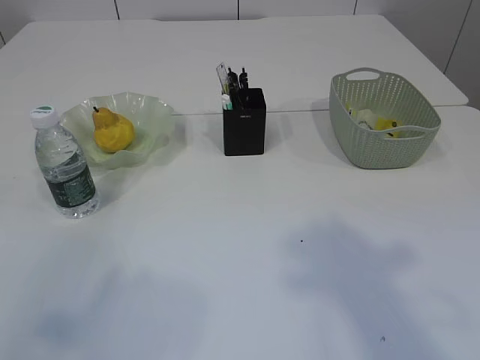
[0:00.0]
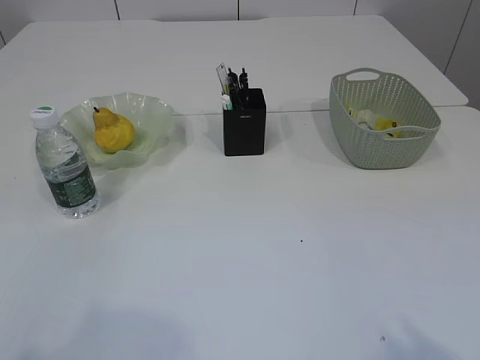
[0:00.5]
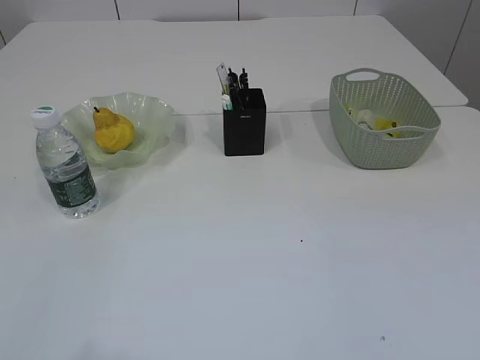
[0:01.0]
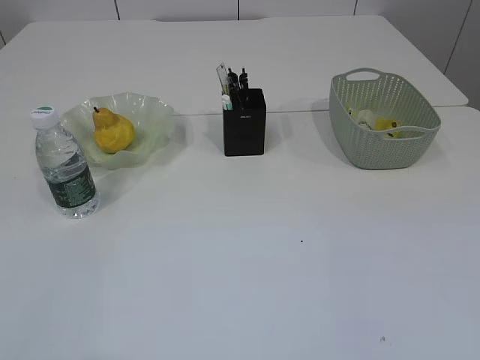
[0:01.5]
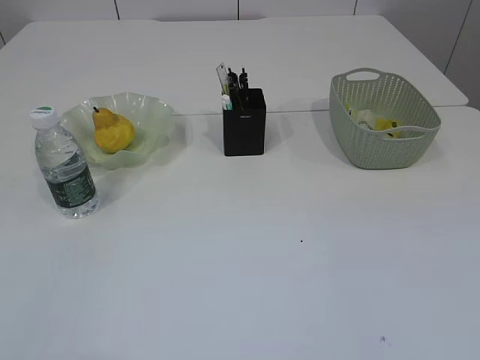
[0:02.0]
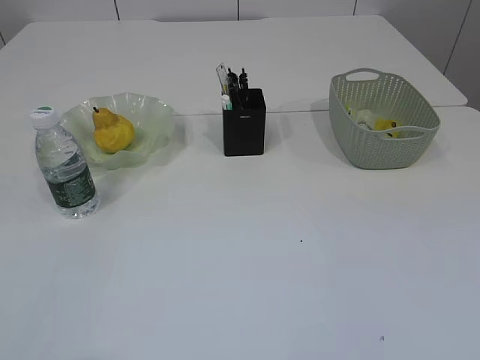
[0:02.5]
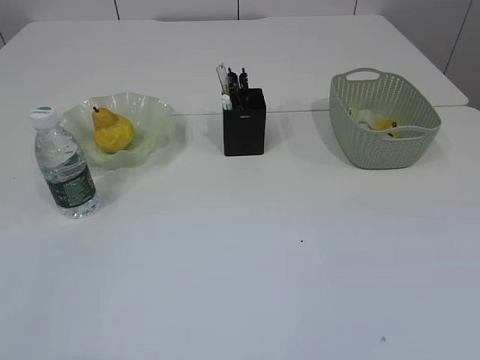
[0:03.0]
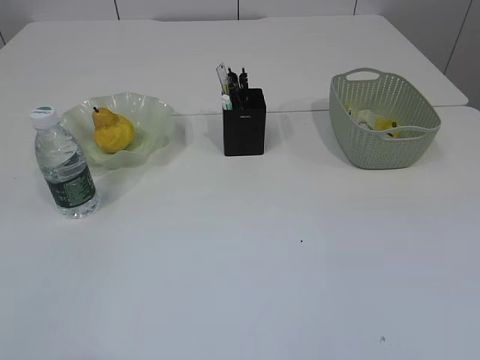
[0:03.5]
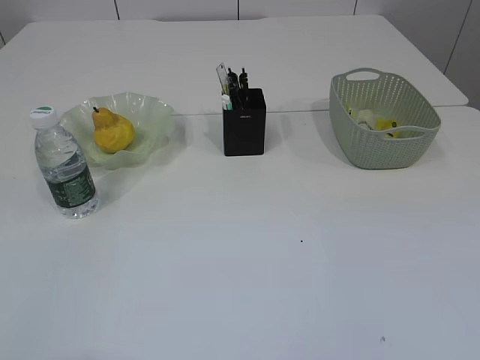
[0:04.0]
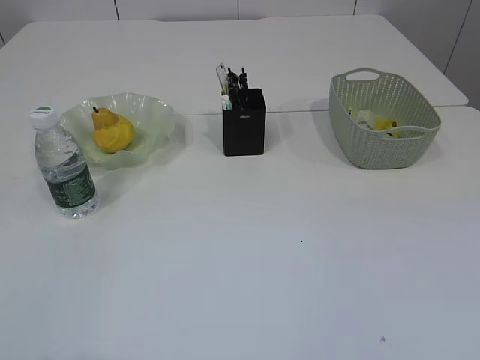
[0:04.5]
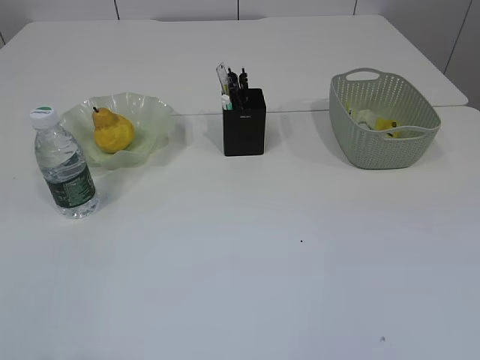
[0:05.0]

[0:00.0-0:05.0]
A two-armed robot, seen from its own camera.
0:00.0 to 0:02.5: The left gripper shifts about 10 cm downward, while the right gripper moves downward and backward, roughly 20 cm.
